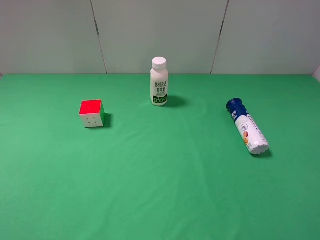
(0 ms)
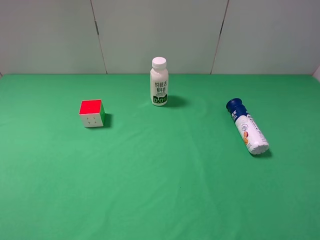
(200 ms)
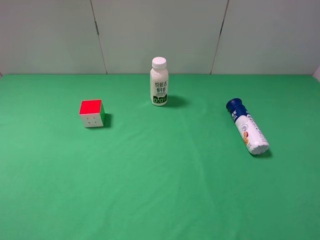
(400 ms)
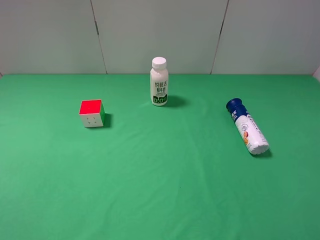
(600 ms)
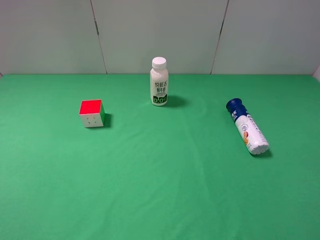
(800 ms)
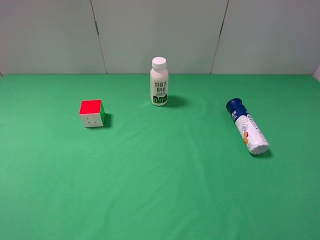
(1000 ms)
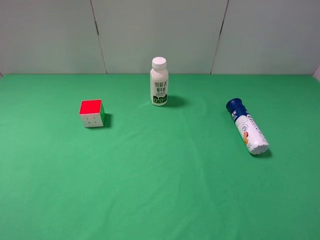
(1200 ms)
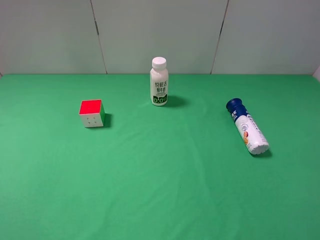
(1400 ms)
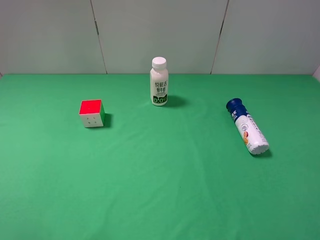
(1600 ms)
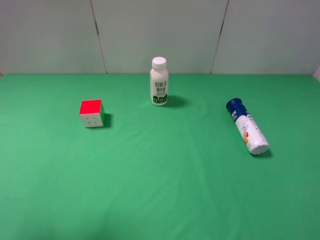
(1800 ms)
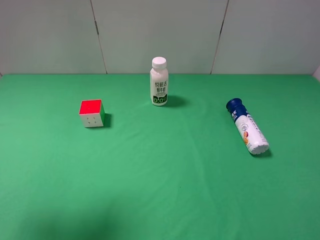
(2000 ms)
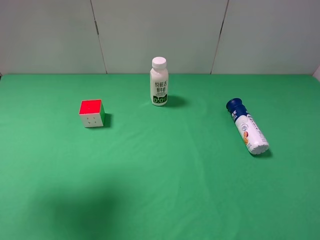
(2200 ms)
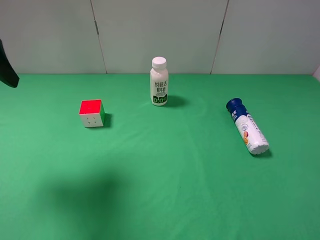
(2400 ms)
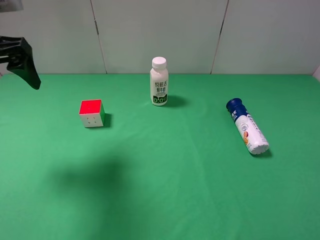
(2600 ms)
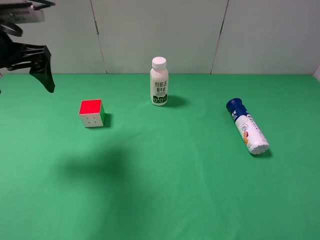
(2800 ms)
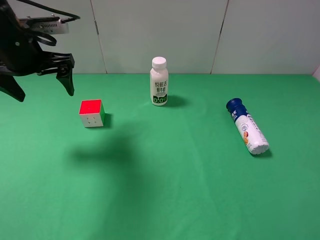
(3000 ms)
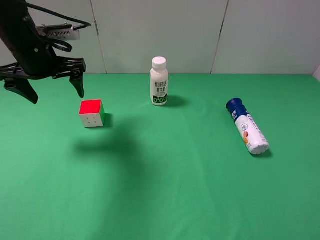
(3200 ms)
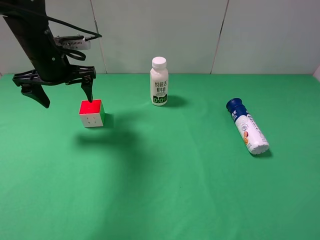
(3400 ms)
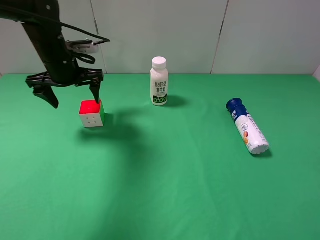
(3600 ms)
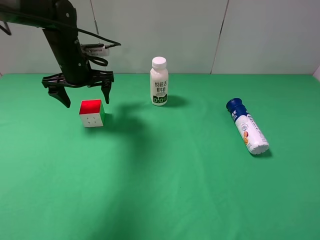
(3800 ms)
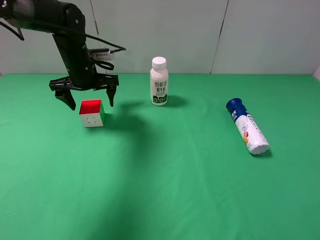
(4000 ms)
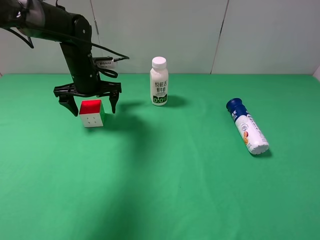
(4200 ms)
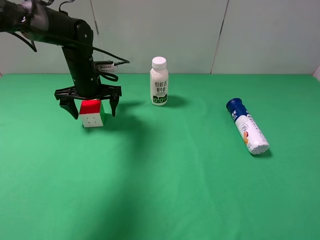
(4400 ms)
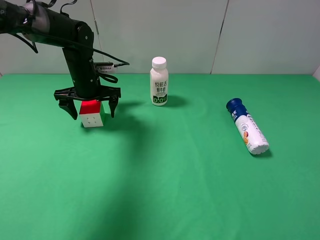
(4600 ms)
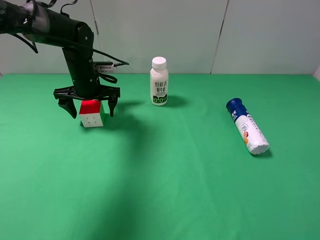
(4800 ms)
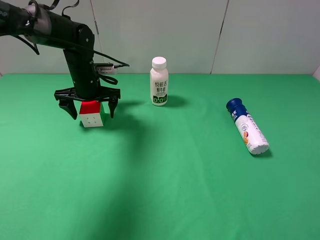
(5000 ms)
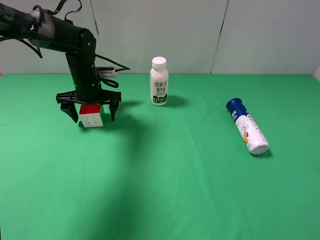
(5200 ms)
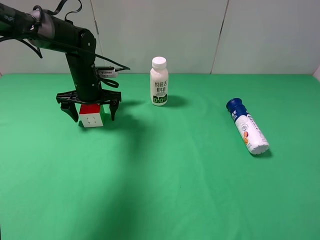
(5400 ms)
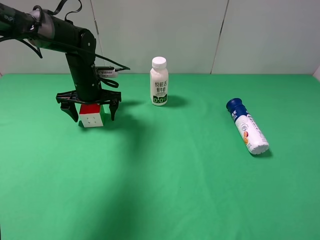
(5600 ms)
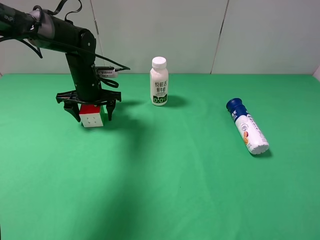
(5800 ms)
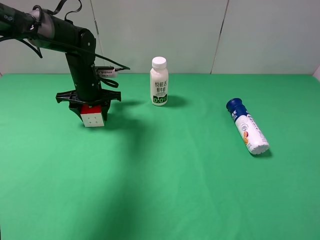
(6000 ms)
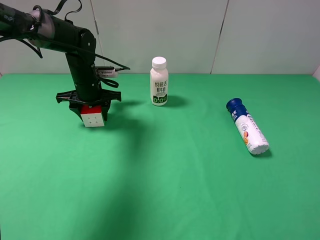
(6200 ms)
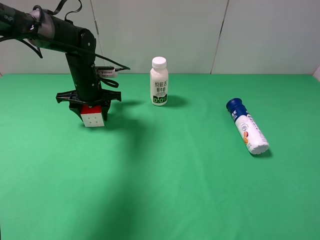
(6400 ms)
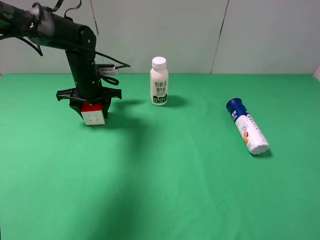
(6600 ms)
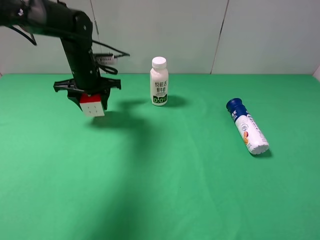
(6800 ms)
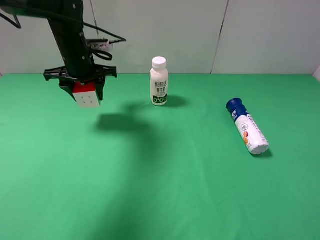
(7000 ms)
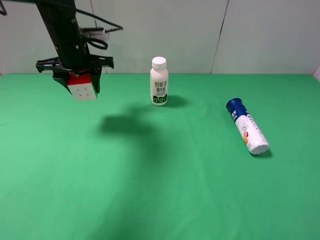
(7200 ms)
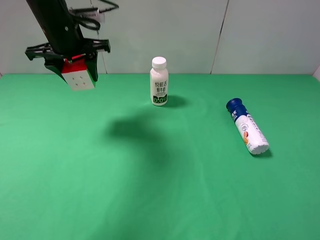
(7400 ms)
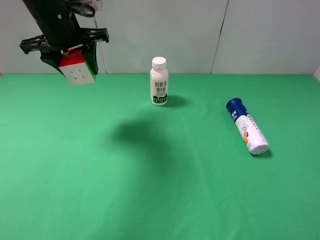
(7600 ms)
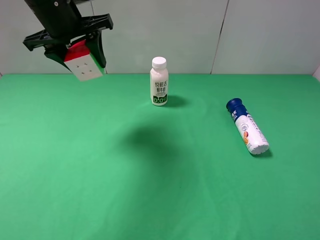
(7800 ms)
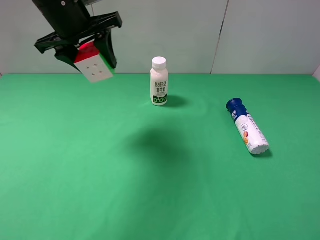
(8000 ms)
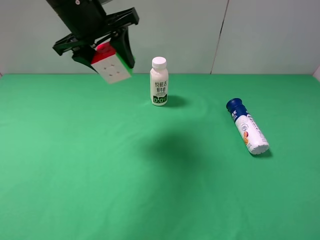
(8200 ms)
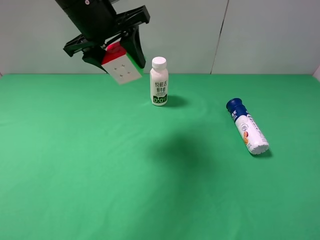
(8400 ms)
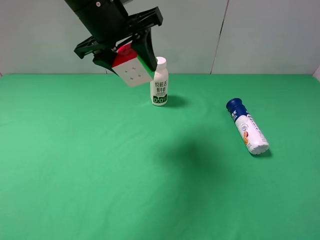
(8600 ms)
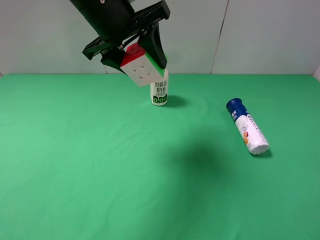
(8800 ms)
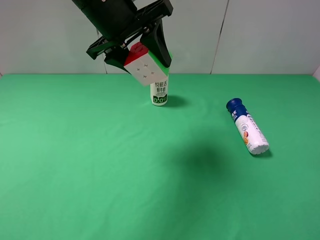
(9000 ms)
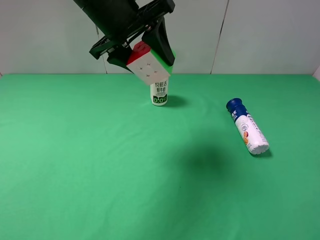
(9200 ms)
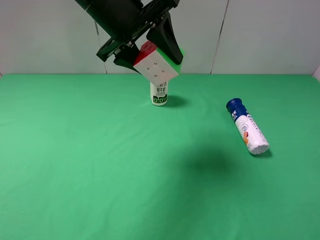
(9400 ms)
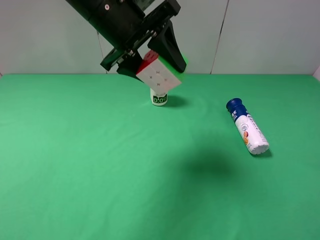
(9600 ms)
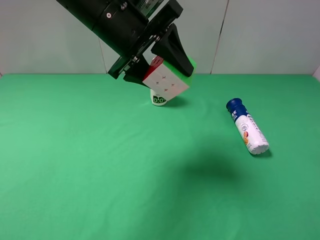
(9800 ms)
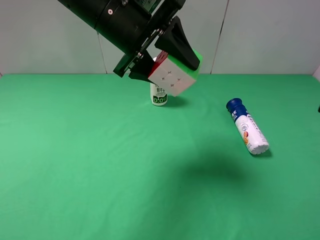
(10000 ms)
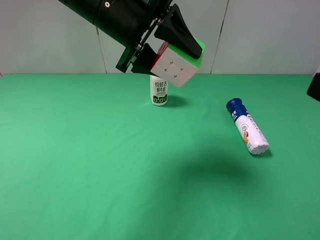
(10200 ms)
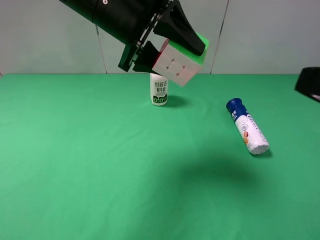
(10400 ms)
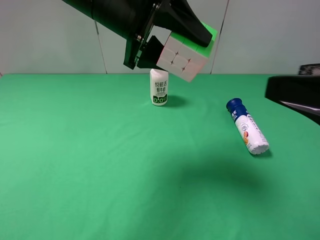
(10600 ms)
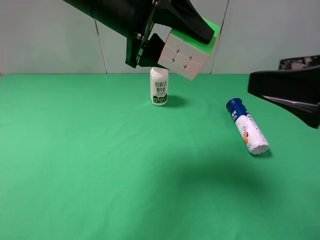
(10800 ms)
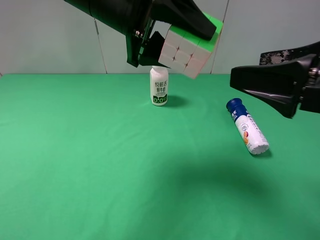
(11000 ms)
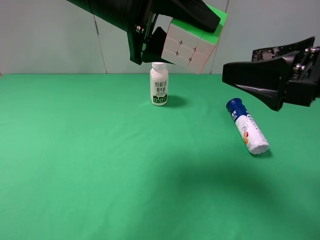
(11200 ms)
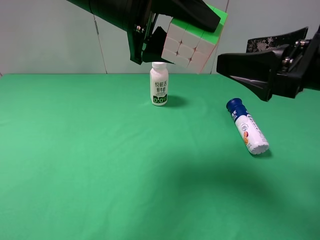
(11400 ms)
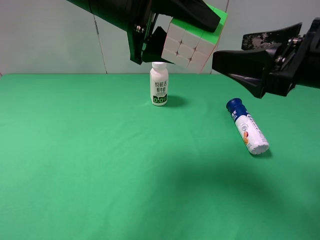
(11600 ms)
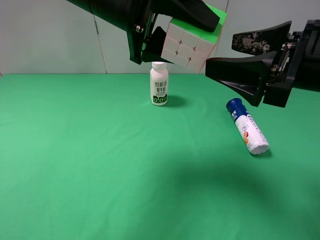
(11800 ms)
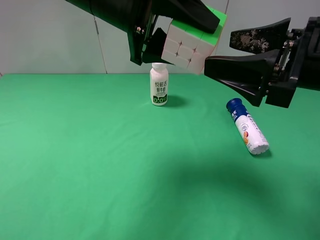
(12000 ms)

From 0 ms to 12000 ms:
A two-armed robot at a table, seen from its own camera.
Task of the whole recording: use the left gripper to pick up the item and transfer it from the left gripper to the right gripper.
Step, from 0 ms to 6200 ms: Use the left gripper to grab the Rubik's Cube on the left side of the table.
From 1600 ms to 3000 ms: The left gripper is displaced forward by some 25 cm.
From 3000 ms to 4400 ms: The left gripper heads downward, forward and to the right, covering about 15 cm.
From 4400 ms to 6000 ms: The left gripper closes its fingers.
From 6000 ms to 7600 ms: The left gripper goes about 15 cm upward.
From 7600 ms to 9000 ms: The left gripper is displaced to the right by about 10 cm.
From 9000 ms to 10400 ms: The right gripper goes about 5 cm forward.
From 10400 ms to 12000 ms: The right gripper travels forward by about 10 cm.

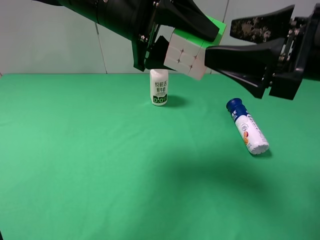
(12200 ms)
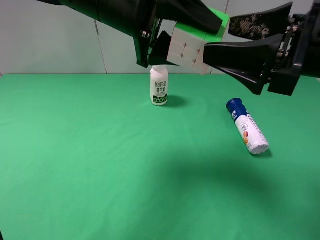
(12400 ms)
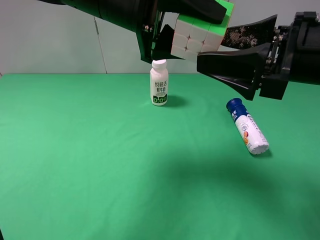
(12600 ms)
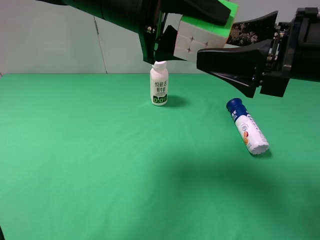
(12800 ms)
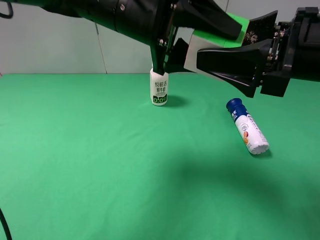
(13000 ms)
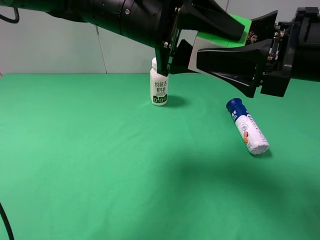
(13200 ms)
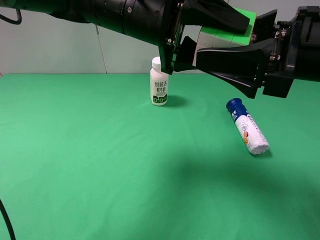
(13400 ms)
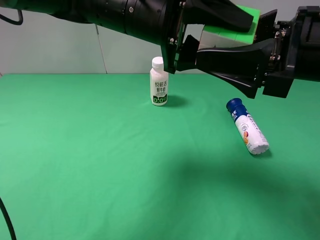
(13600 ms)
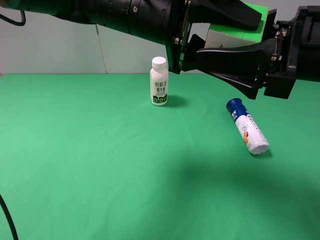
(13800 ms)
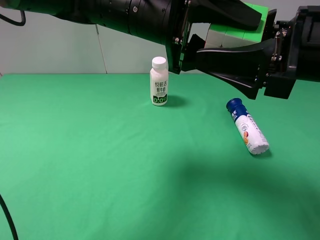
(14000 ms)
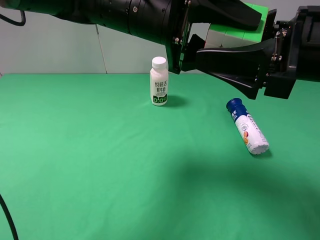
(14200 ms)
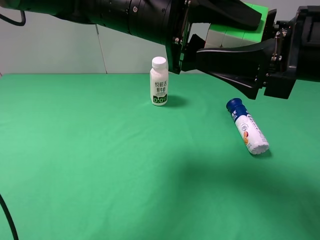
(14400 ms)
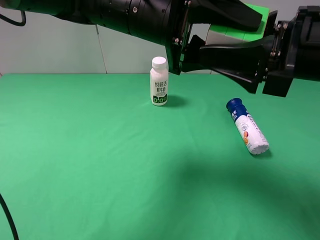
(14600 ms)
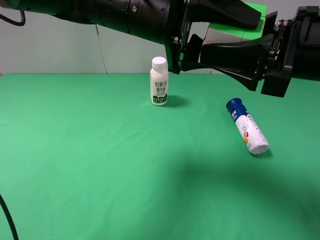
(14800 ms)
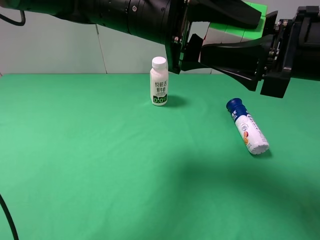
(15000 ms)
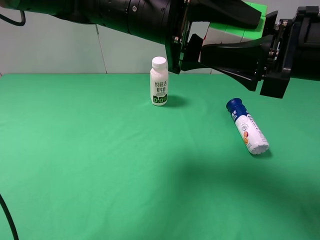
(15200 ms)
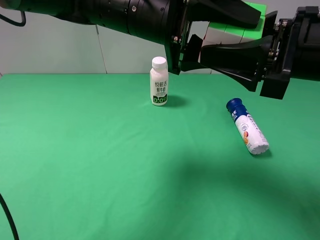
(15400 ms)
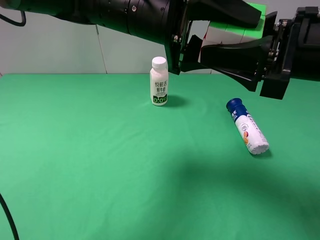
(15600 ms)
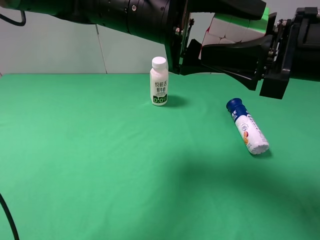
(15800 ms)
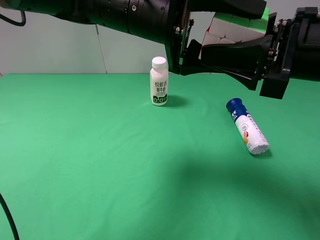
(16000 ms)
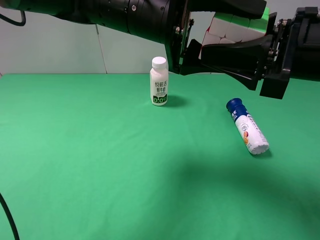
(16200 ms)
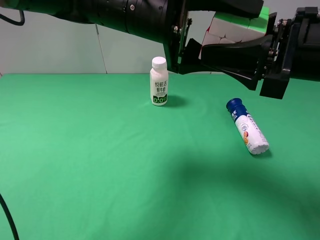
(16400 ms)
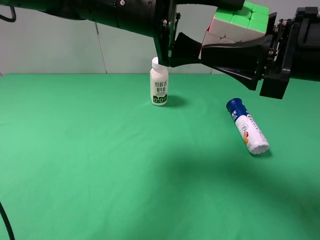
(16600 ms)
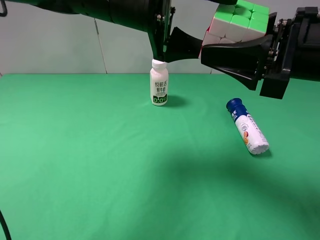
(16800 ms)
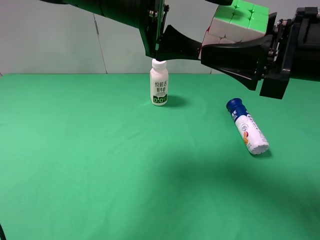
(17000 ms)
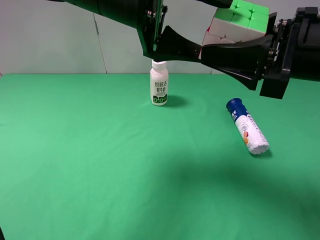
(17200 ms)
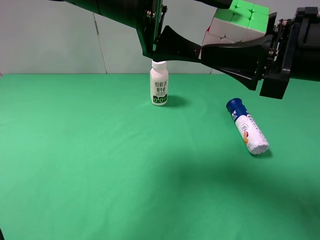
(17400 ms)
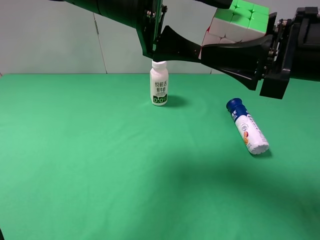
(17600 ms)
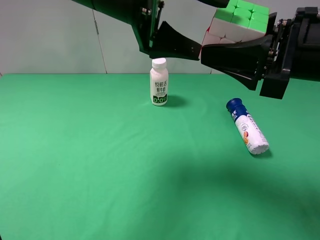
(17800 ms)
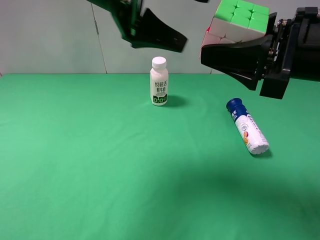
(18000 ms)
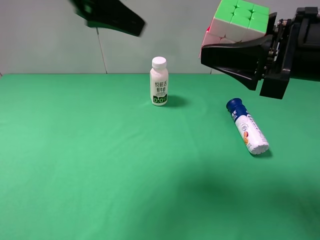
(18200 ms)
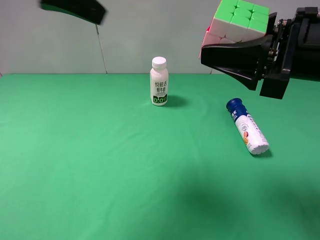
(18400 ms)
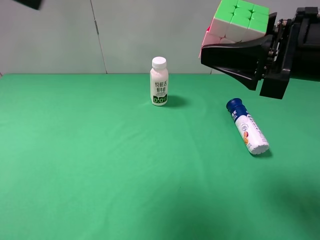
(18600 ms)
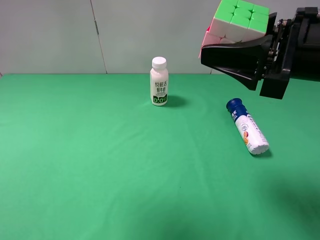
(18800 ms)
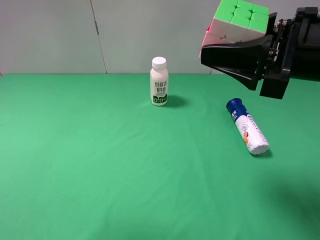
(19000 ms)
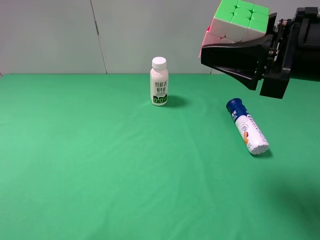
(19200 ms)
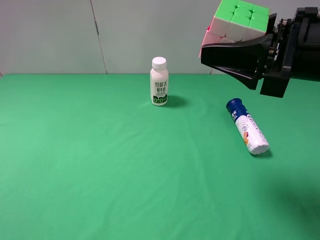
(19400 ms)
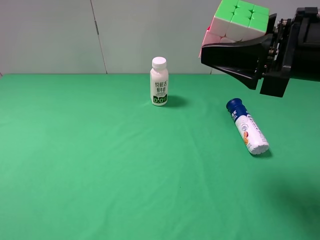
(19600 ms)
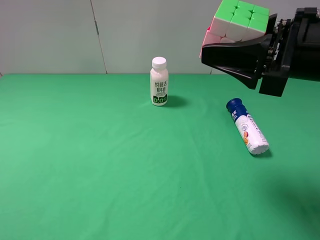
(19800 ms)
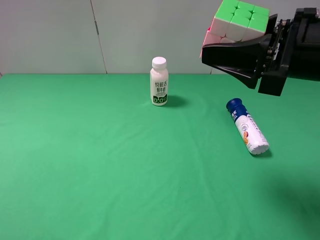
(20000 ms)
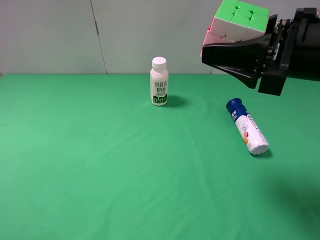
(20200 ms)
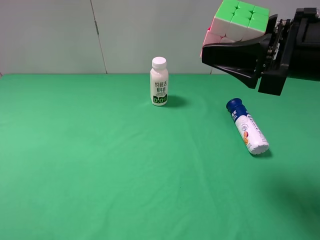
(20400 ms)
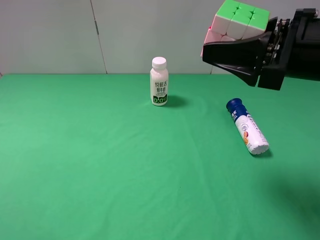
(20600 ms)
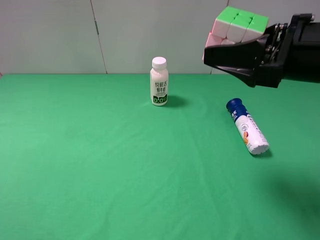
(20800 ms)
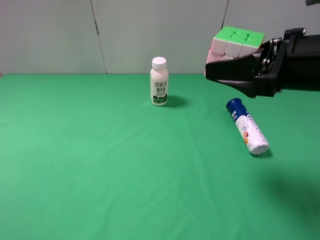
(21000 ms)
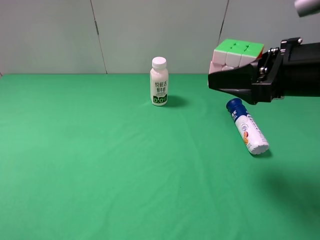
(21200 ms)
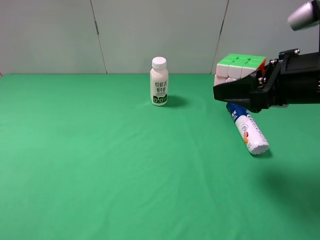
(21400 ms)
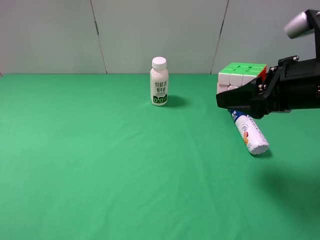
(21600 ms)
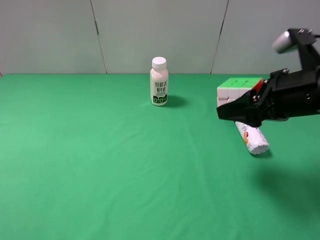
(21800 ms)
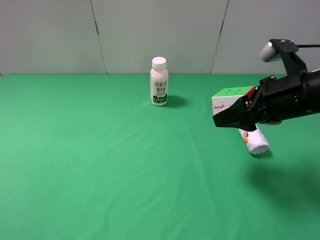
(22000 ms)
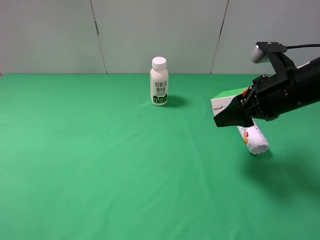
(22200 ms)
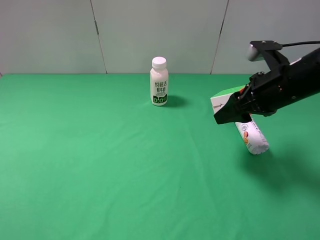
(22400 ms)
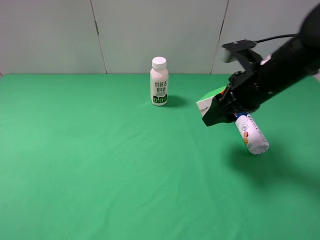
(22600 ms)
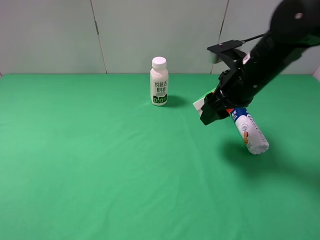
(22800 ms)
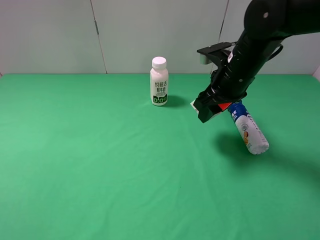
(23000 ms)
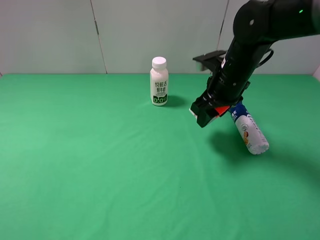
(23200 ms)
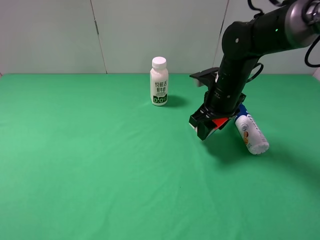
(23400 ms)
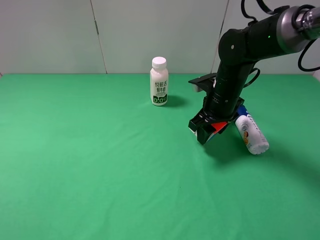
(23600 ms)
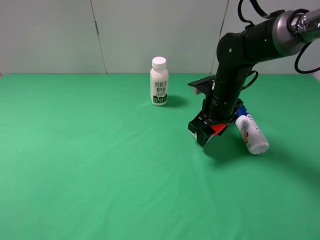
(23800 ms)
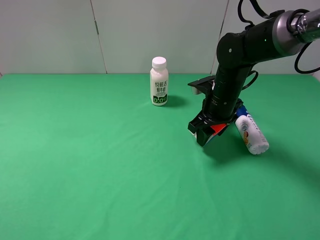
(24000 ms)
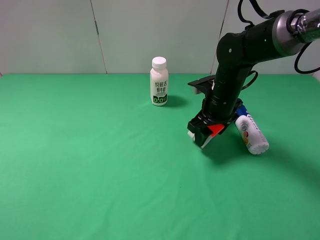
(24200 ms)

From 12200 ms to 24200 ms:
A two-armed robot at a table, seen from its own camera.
Task of the whole recording: use the left gripper to pick up the item and transfer it from the left gripper to the right gripper.
Step, from 12200 ms to 16800 ms: Pass the Rubik's Cube to the right gripper.
From 12200 ms to 13800 ms: The grippers move only a little.
From 13800 ms to 15200 ms: The right gripper closes up.
From 15200 ms to 16600 ms: The left gripper opens.
From 16600 ms to 18200 ms: The left gripper is displaced to the left and upward by roughly 15 cm.
From 18200 ms to 19800 ms: The left gripper shifts about 30 cm backward and to the left.
From 21200 ms to 22600 ms: The right gripper heads forward and downward, covering roughly 10 cm.
From 22600 ms to 24200 ms: The right gripper moves downward and forward, some 10 cm, and opens.
